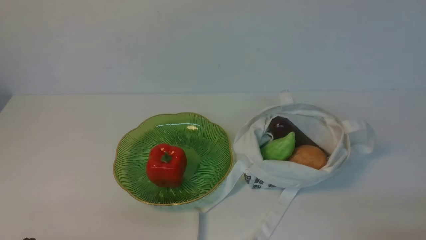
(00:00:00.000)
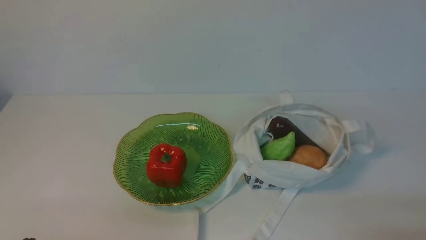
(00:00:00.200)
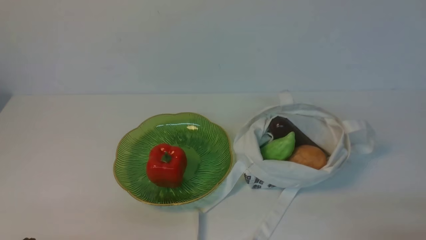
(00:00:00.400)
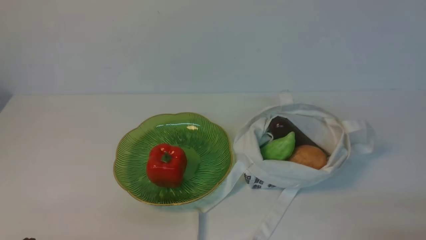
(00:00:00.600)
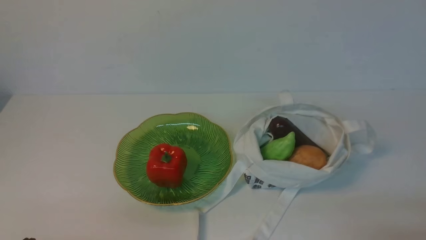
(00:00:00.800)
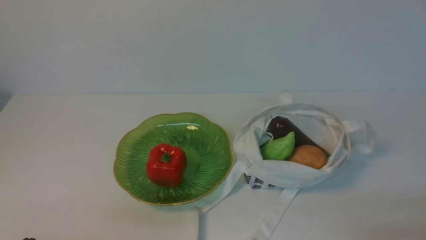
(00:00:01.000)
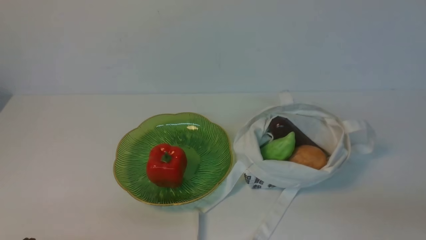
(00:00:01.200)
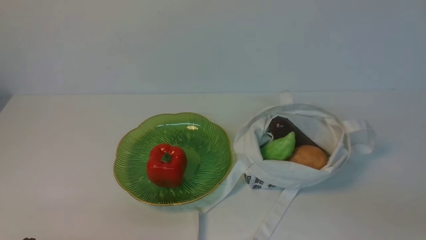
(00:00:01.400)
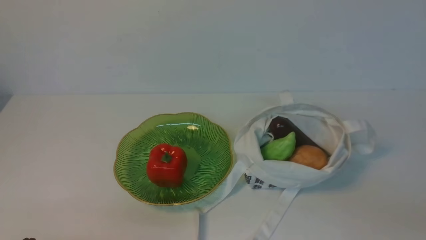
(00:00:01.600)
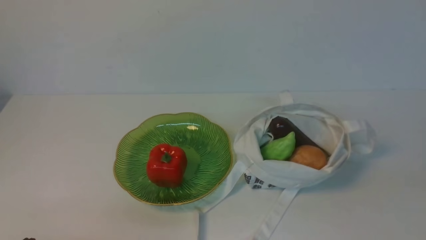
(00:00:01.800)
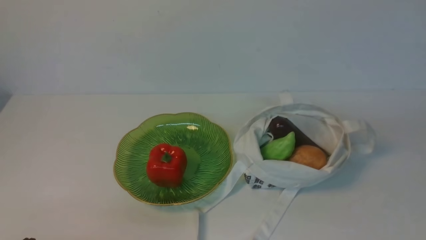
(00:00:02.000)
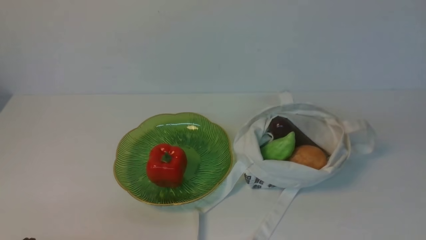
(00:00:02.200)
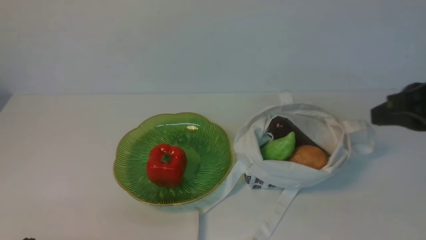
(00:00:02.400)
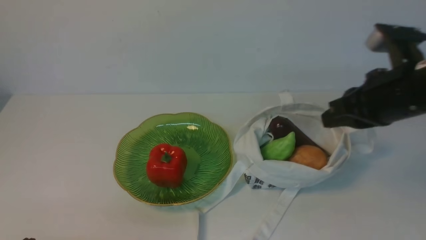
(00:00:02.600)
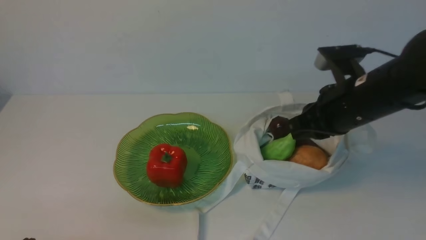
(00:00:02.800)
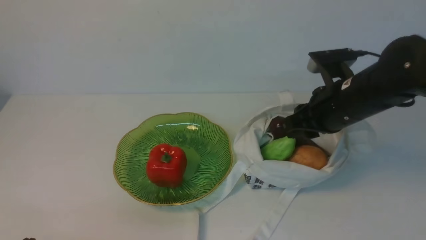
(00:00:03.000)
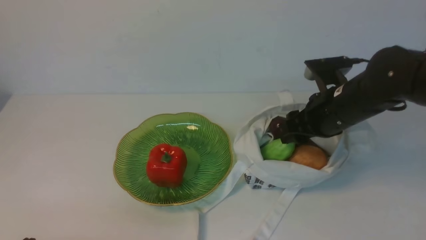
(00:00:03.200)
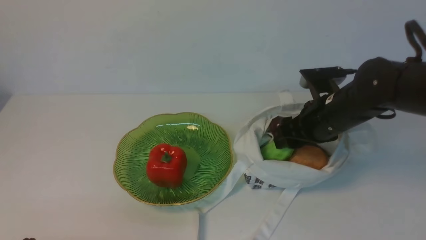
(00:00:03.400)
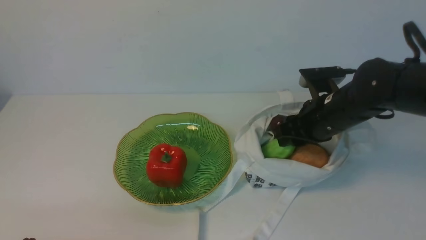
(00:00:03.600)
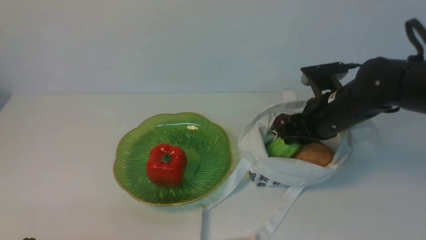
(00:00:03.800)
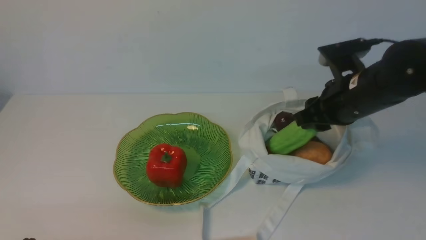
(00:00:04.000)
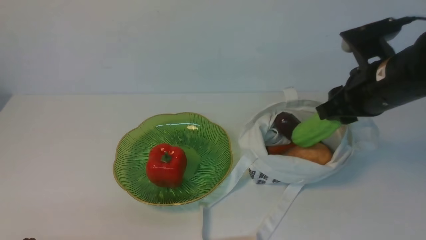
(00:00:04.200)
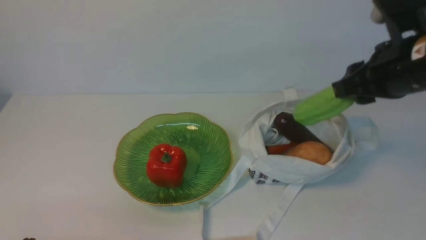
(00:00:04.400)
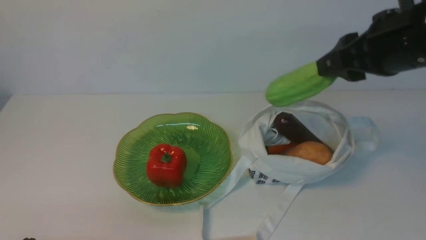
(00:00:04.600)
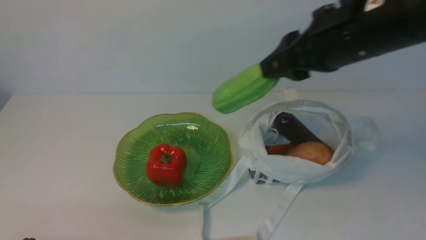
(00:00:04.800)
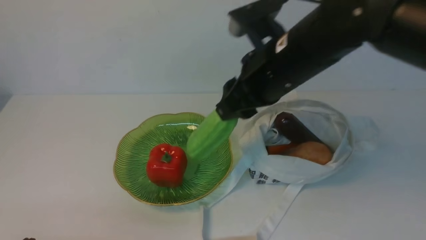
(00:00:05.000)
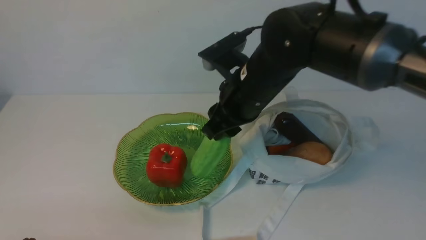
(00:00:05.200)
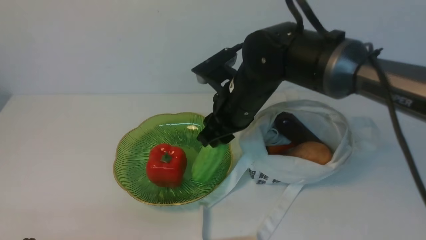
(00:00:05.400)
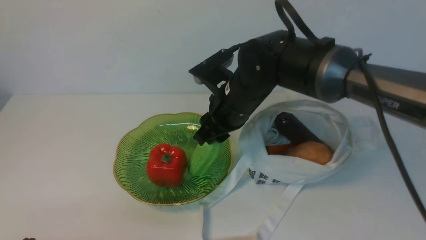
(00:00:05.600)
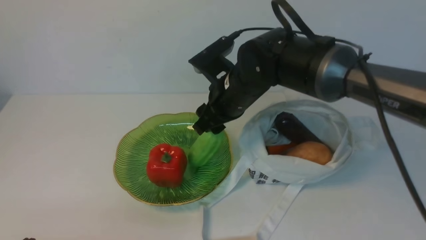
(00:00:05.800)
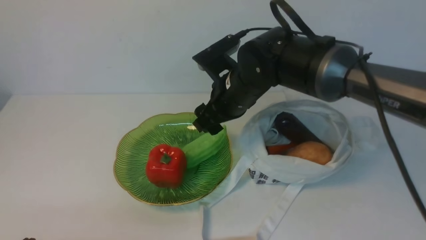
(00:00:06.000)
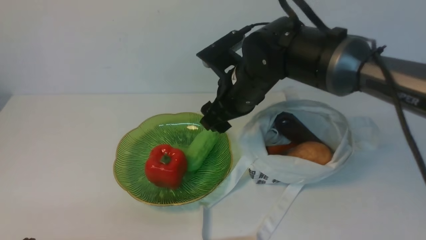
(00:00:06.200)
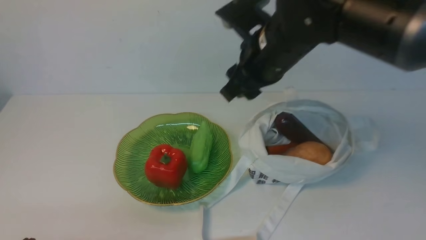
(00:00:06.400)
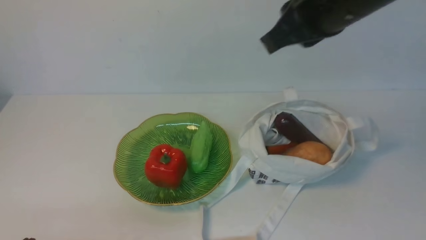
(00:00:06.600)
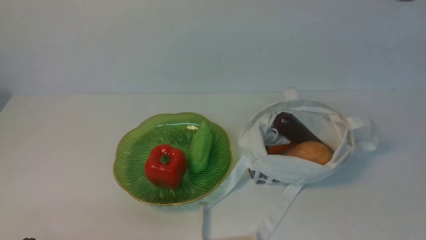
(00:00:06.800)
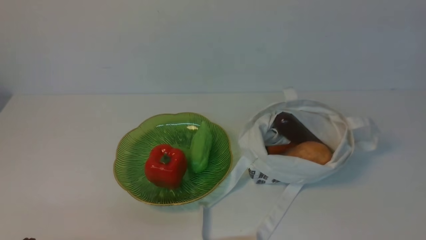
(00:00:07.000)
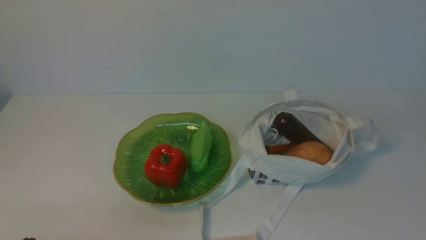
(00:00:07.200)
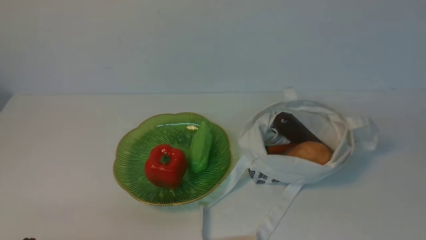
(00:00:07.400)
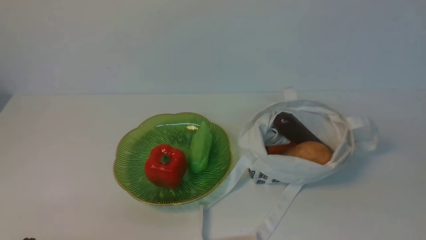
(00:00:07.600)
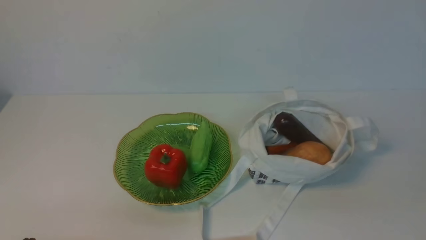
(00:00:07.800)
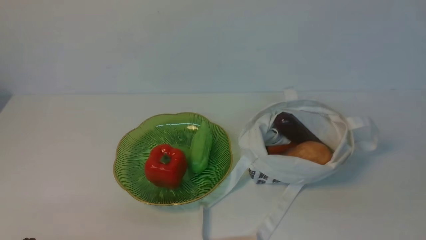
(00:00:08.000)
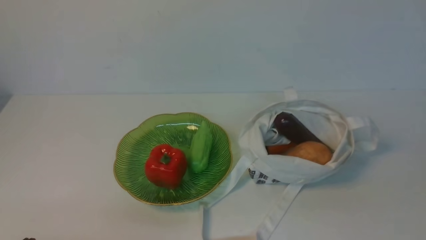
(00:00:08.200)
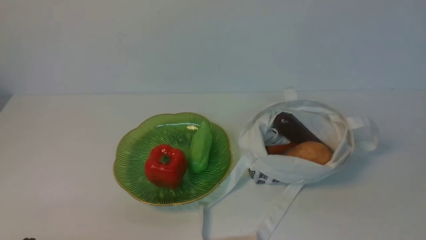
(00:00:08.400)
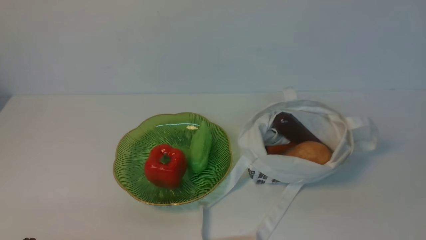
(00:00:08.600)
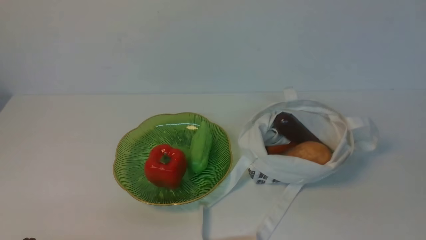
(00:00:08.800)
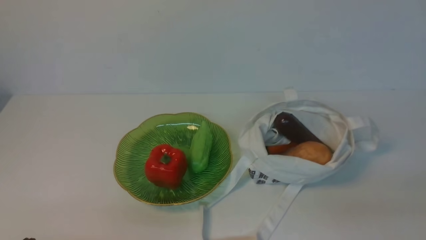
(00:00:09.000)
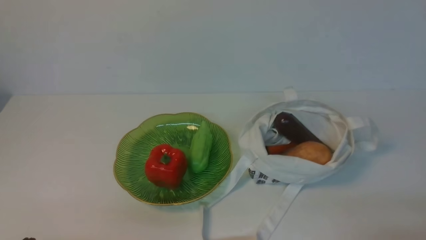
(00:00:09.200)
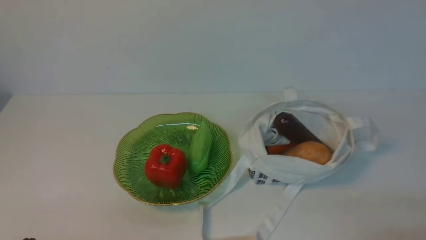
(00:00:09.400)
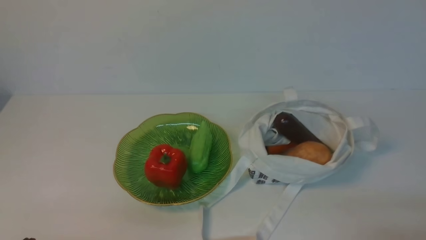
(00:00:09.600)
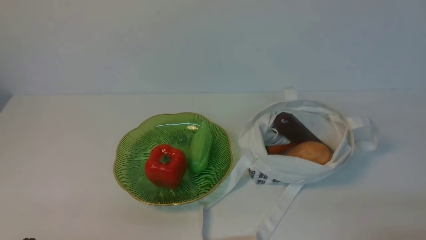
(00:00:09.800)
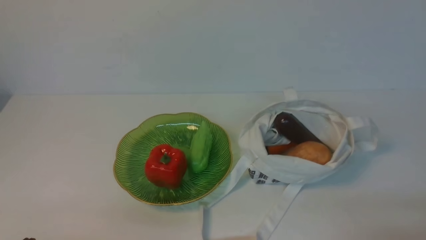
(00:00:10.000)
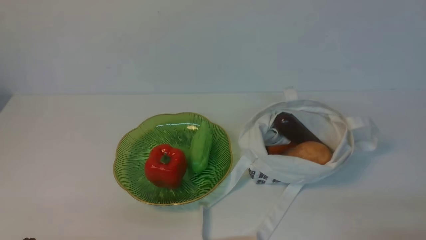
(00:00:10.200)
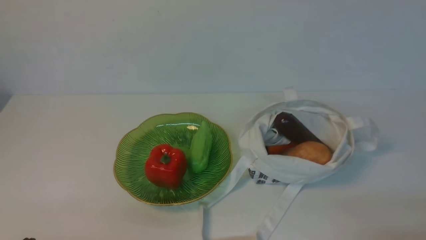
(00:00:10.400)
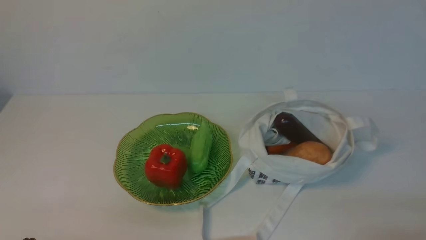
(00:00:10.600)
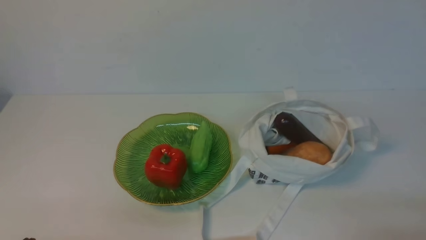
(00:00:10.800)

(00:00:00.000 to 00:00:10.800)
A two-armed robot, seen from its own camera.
Task of the whole recording: take vegetables from cloth bag on white table place on plate.
Step, 00:00:00.000 - 00:00:03.600: Grasp the bitter melon with right gripper.
Step, 00:00:03.800 - 00:00:06.000: Place the bitter melon on the plate with right gripper.
00:00:01.600 - 00:00:03.000: The right gripper moves forward and to the left, roughly 30 cm, and opens.
00:00:03.000 - 00:00:04.600: The right gripper is displaced upward by some 10 cm.
00:00:04.600 - 00:00:06.200: The right gripper is displaced to the left, downward and forward by some 15 cm, and opens its fingers.
00:00:06.200 - 00:00:07.800: The right gripper is displaced backward and to the right by some 40 cm, and closes its fingers.
00:00:09.200 - 00:00:10.800: Neither gripper changes place.
